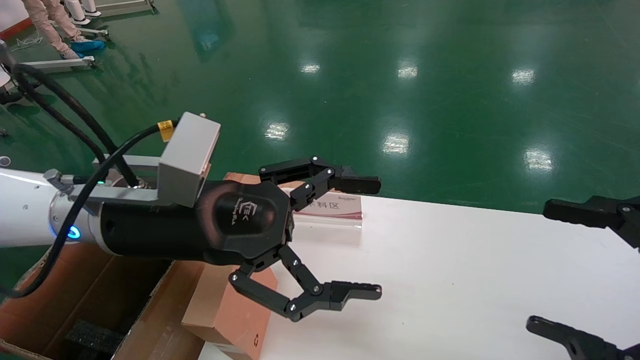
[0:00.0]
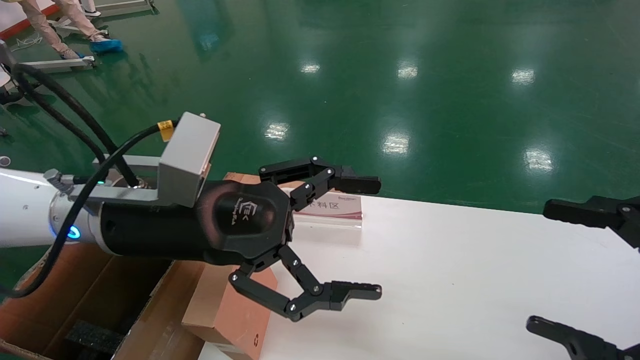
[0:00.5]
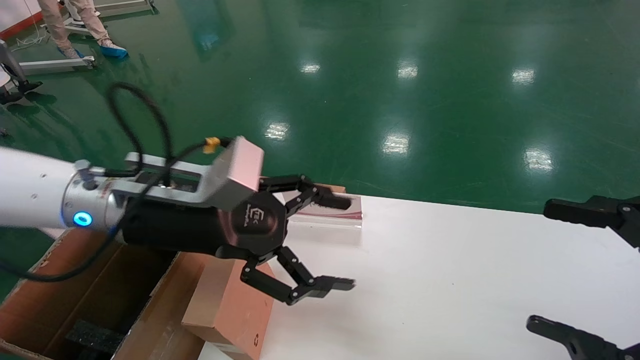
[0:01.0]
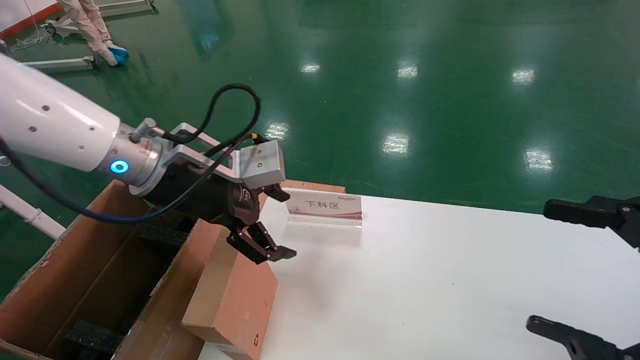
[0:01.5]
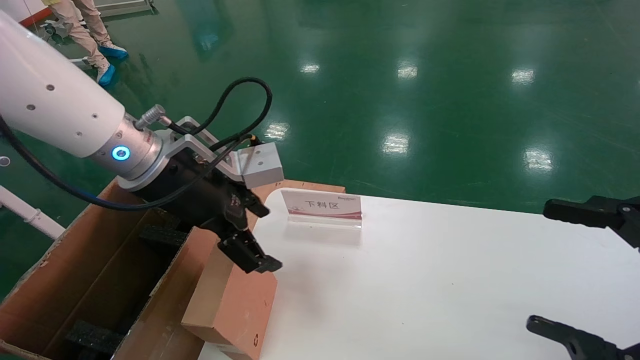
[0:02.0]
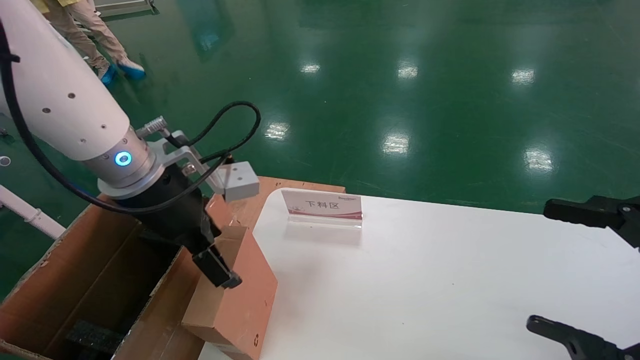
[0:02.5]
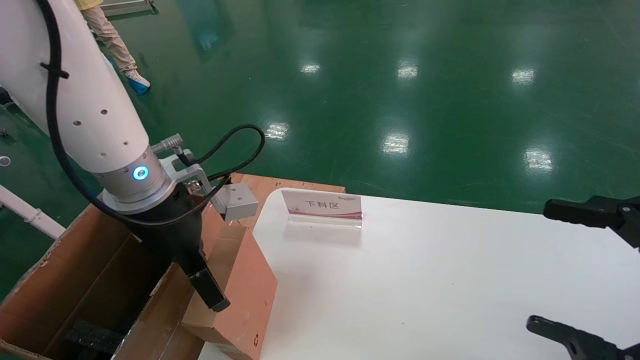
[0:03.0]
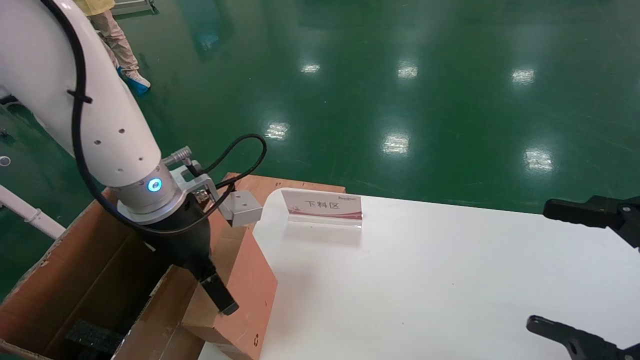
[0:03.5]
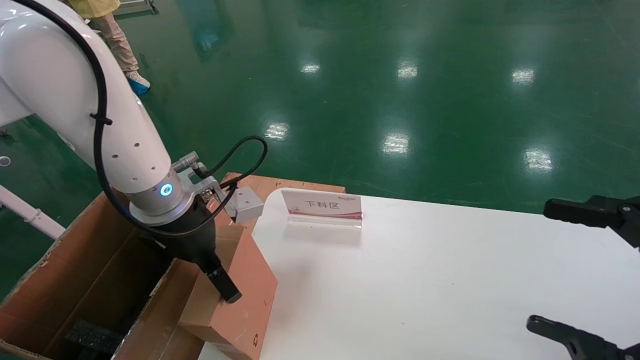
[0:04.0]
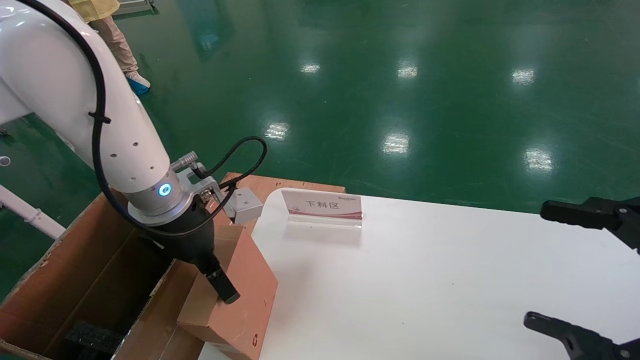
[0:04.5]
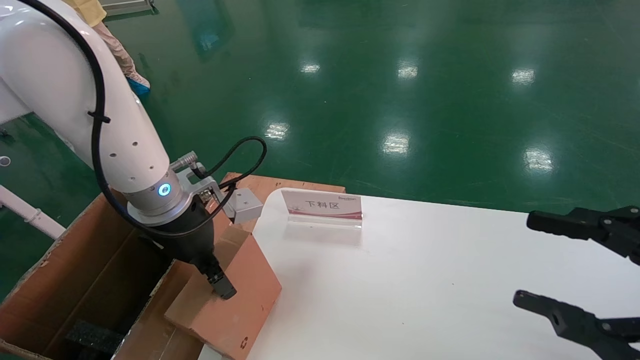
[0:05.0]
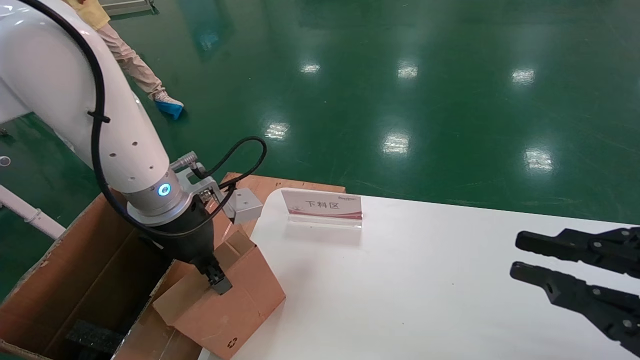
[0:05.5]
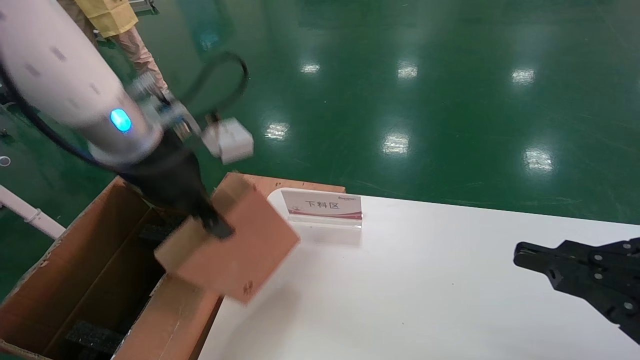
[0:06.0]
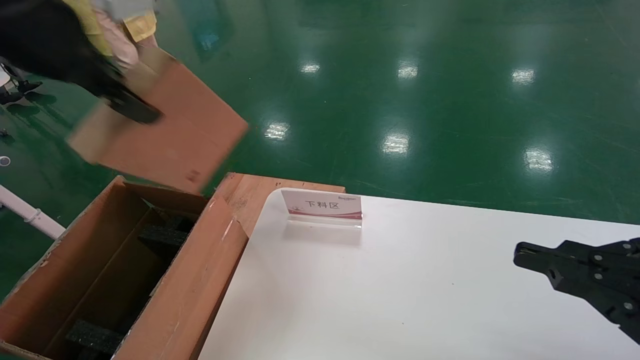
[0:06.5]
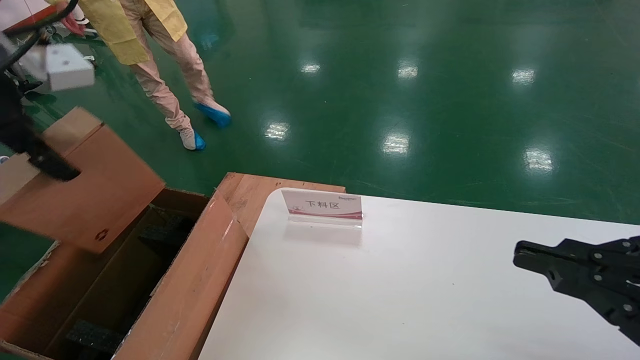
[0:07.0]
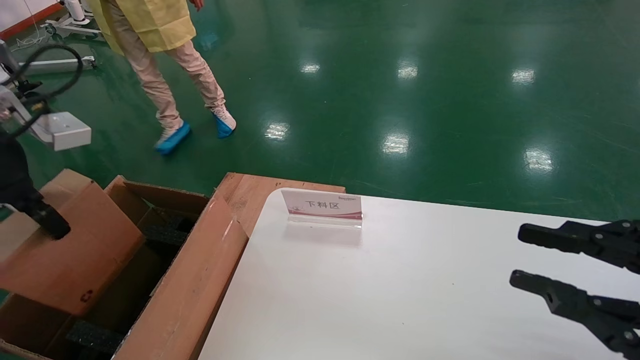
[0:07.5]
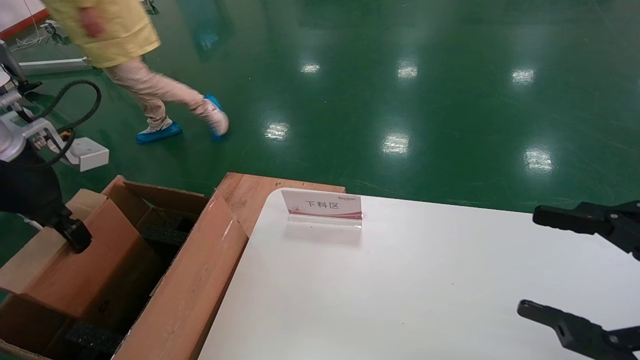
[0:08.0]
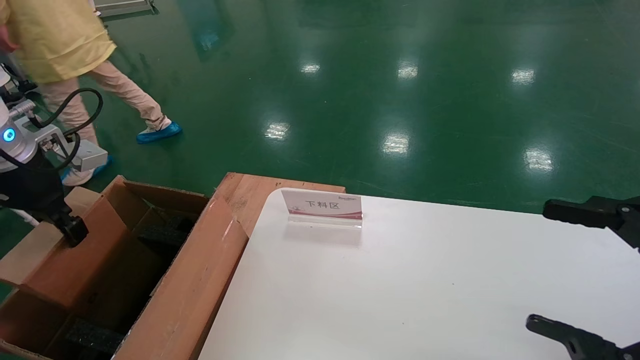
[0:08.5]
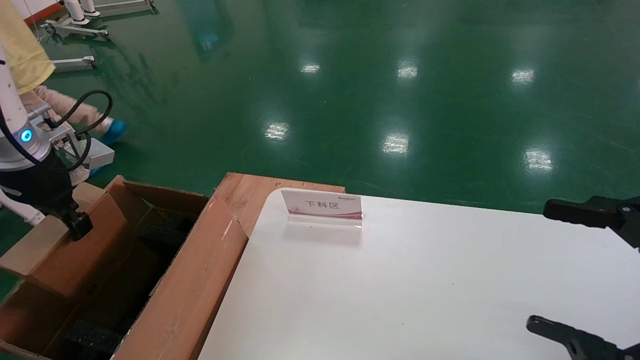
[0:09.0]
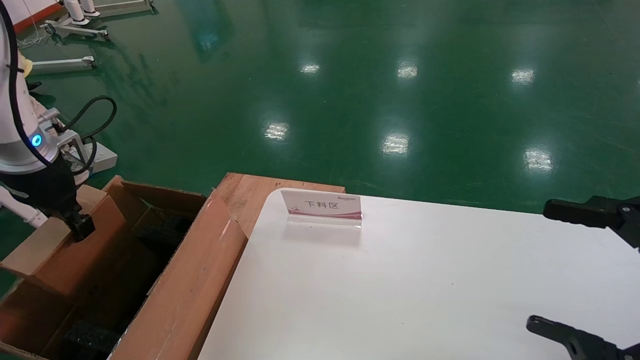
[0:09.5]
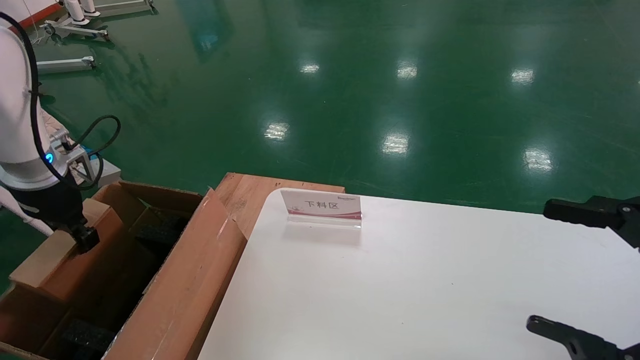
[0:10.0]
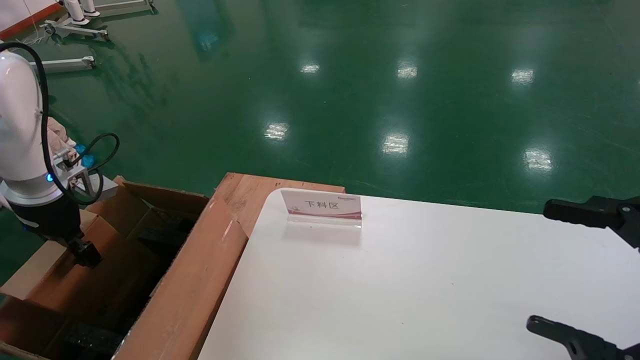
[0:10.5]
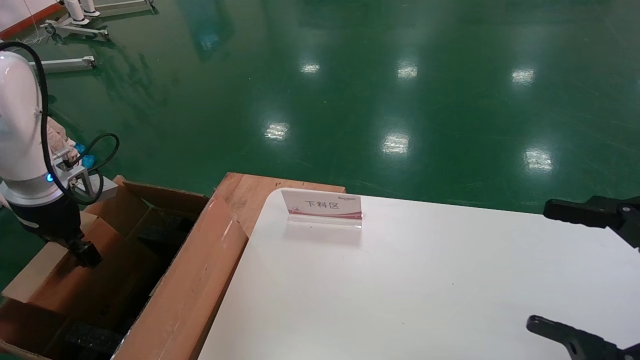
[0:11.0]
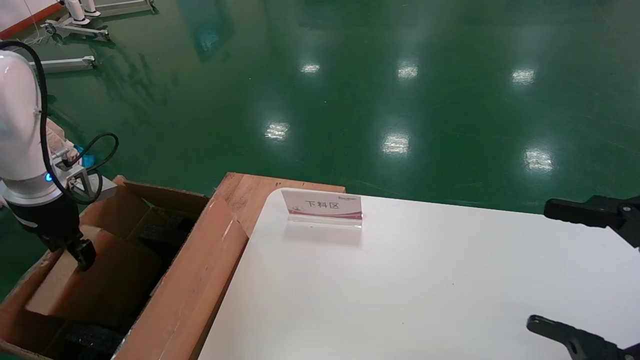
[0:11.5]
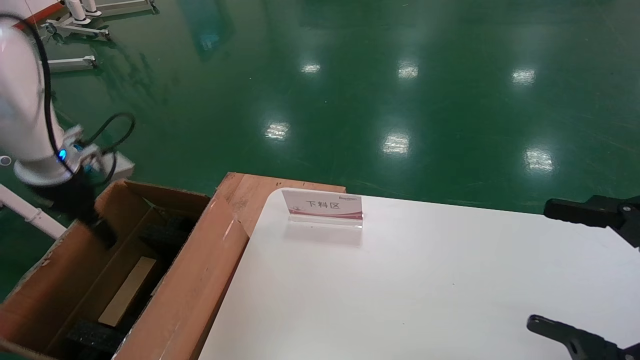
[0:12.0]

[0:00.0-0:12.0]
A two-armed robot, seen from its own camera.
Task of the whole recording: pick up the small cardboard box and load it into the large cardboard box.
Step, 0:01.0 to 0:05.5: Pick up the mouse and power cord box.
Step, 0:06.0 to 0:11.5: Place the mouse and power cord box into the case.
0:00.0 to 0:02.0: The left gripper is displaced forward by approximately 5 cm.
0:02.0 to 0:04.0: The left gripper shifts roughly 5 cm downward.
0:04.0 to 0:06.0: The left gripper moves upward, roughly 10 cm, and closes up; the right gripper closes.
0:06.0 to 0:08.0: The left gripper heads to the left, covering about 15 cm. Meanwhile the right gripper opens its fingers.
0:08.0 to 0:10.0: The left gripper travels downward, forward and to the left by approximately 10 cm, while the right gripper opens its fingers.
0:10.0 to 0:12.0: The left gripper opens its fingers.

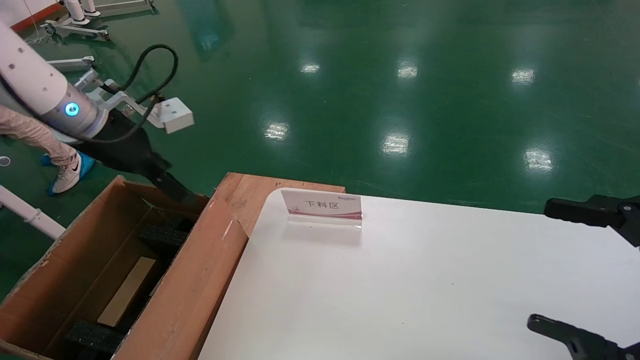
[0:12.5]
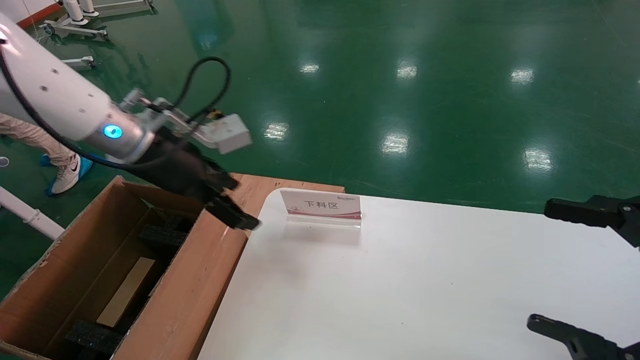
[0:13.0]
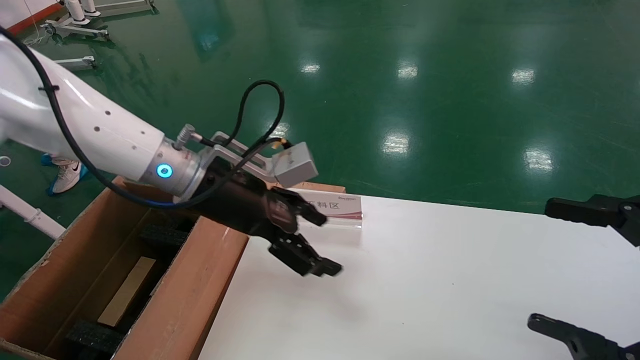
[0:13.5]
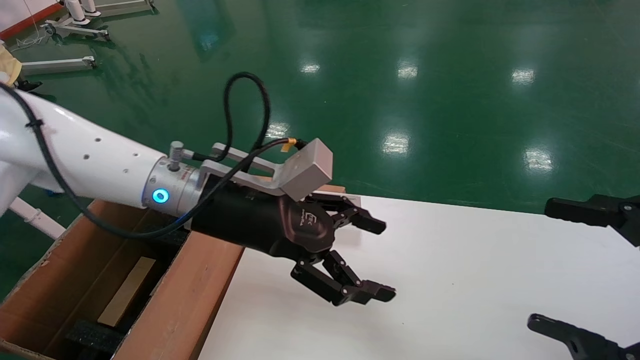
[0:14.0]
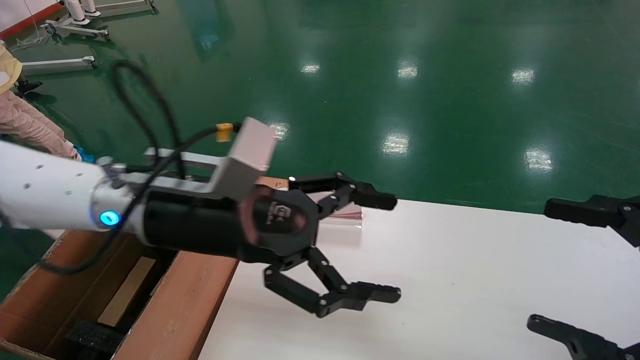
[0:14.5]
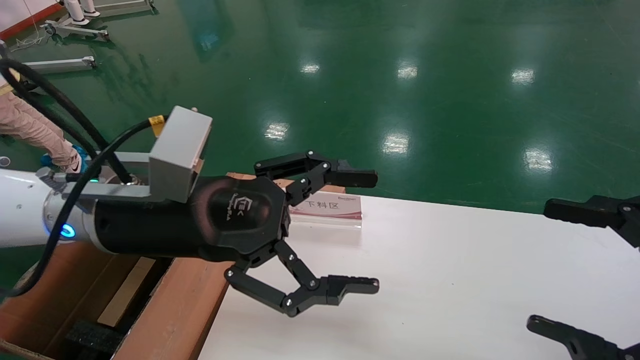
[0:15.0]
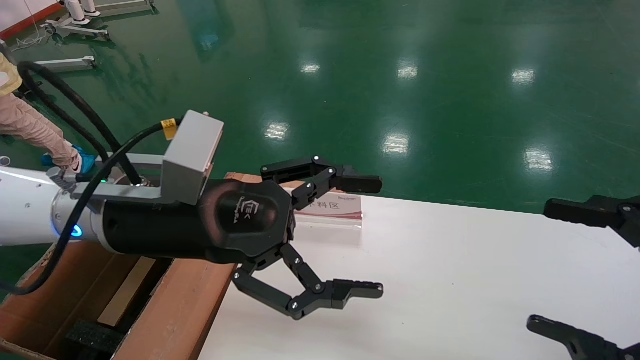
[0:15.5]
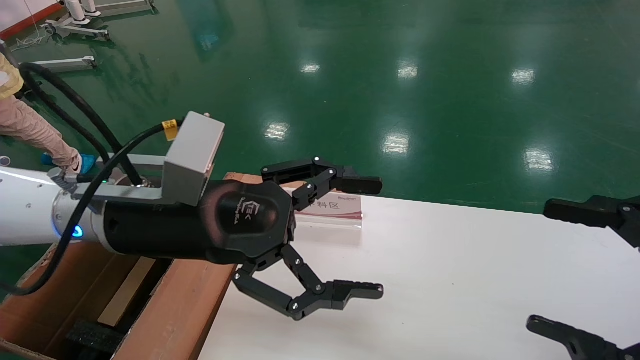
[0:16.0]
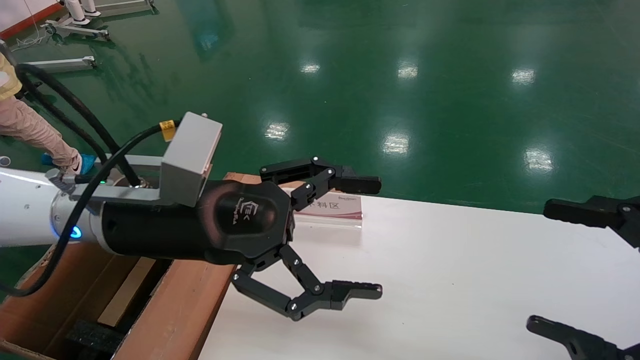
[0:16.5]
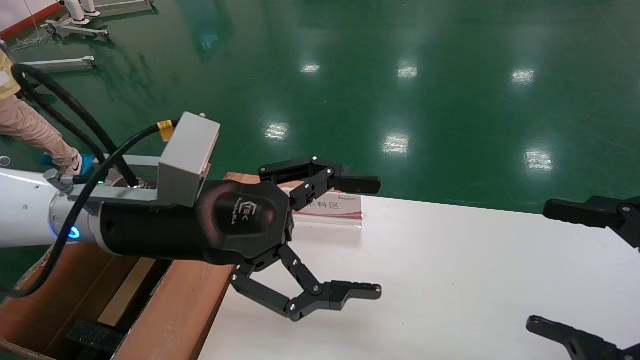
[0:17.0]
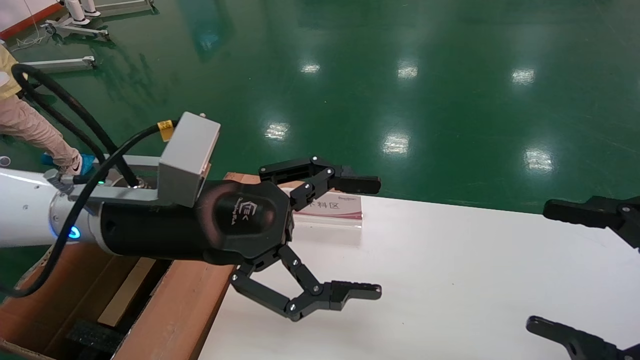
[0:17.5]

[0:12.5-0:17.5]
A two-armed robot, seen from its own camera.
Task of the whole recording: pick up the small cardboard box and load it into the large cardboard box.
0:12.5 to 0:15.0: The left gripper goes roughly 20 cm to the right and backward.
0:15.0 to 0:17.5: Both grippers stay about where they are.
